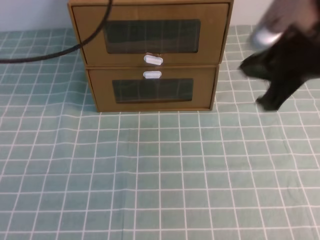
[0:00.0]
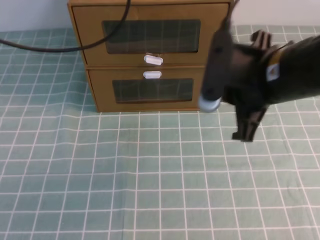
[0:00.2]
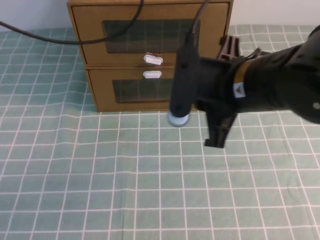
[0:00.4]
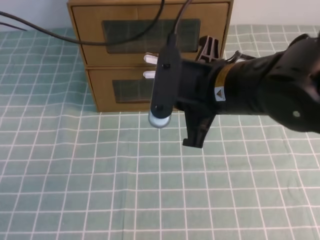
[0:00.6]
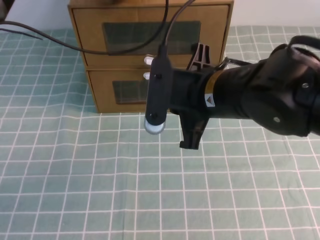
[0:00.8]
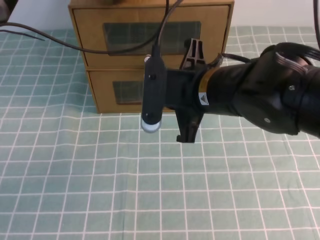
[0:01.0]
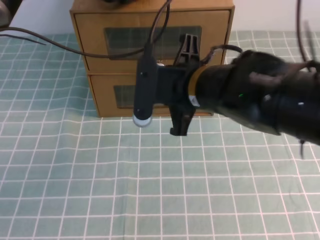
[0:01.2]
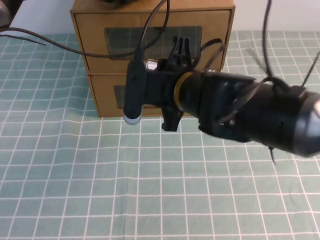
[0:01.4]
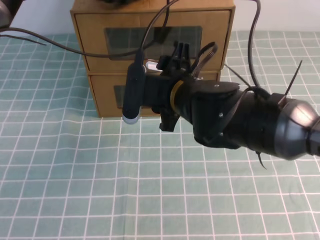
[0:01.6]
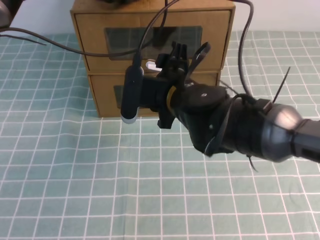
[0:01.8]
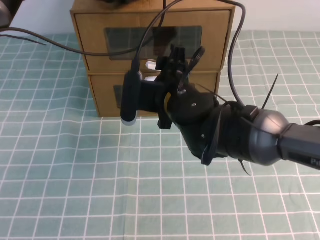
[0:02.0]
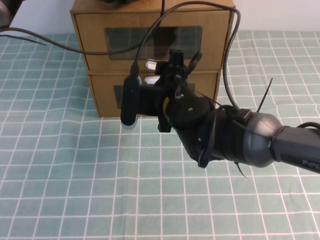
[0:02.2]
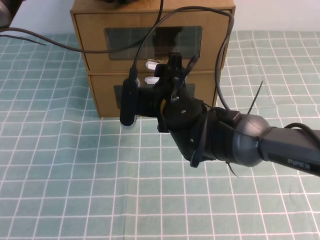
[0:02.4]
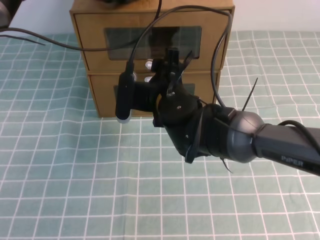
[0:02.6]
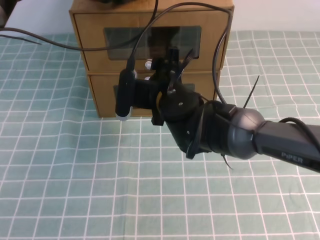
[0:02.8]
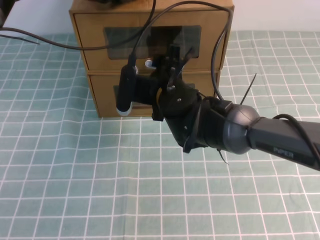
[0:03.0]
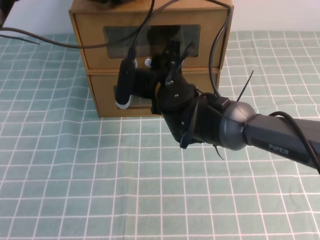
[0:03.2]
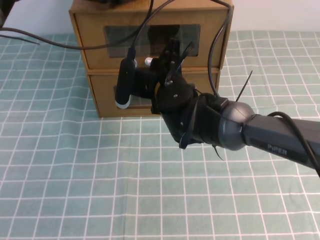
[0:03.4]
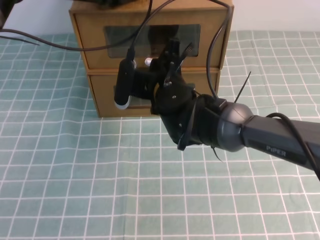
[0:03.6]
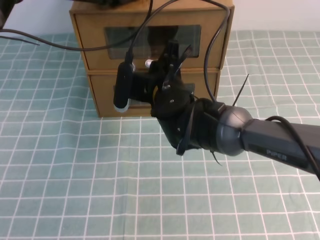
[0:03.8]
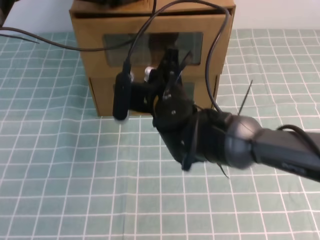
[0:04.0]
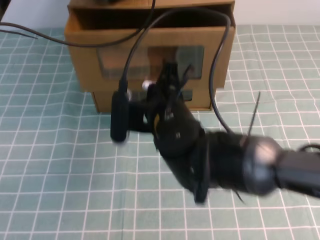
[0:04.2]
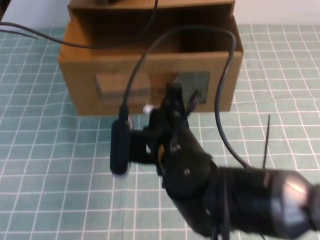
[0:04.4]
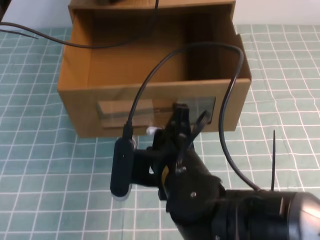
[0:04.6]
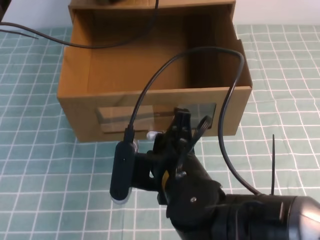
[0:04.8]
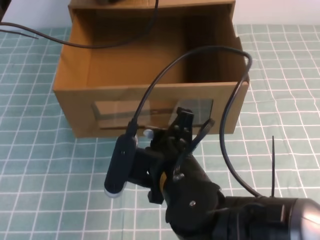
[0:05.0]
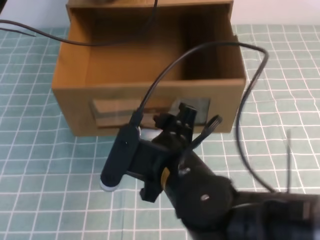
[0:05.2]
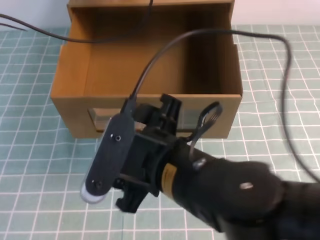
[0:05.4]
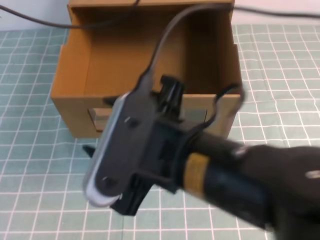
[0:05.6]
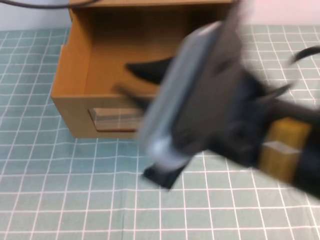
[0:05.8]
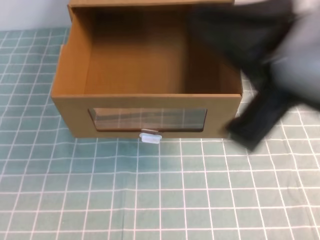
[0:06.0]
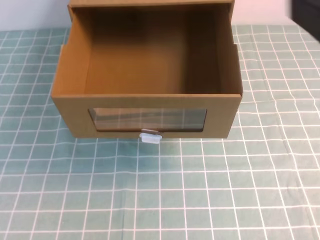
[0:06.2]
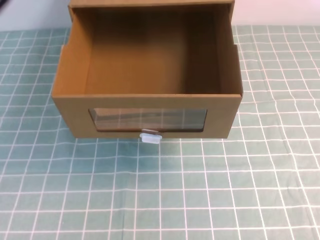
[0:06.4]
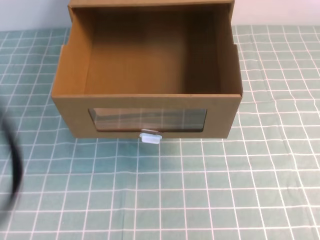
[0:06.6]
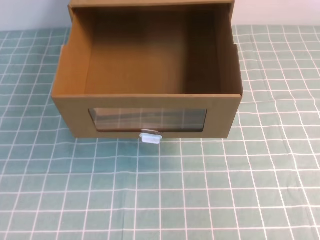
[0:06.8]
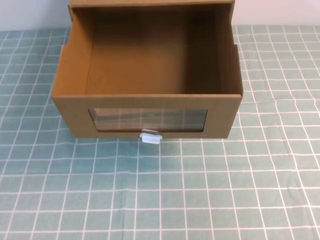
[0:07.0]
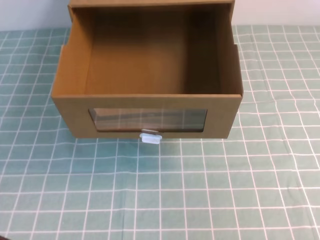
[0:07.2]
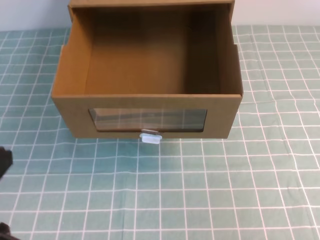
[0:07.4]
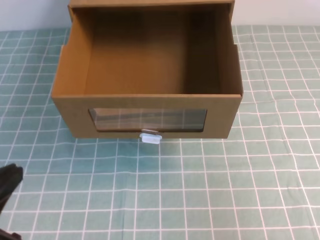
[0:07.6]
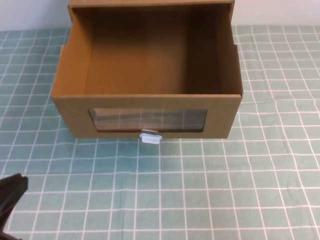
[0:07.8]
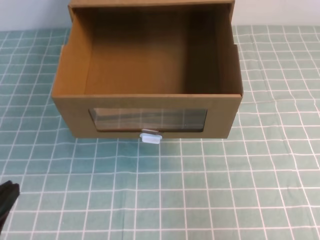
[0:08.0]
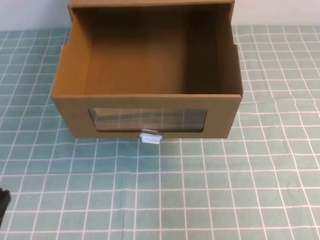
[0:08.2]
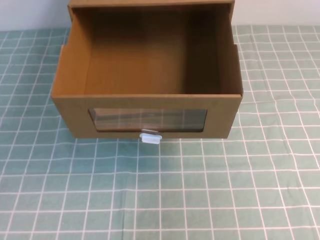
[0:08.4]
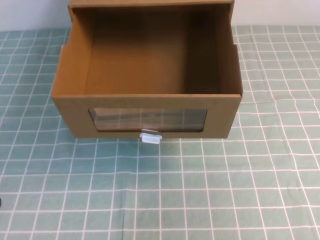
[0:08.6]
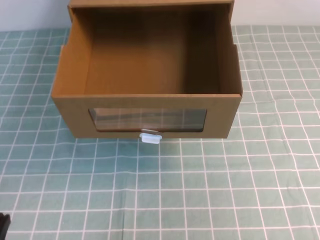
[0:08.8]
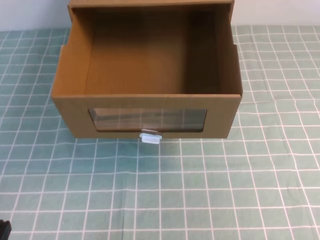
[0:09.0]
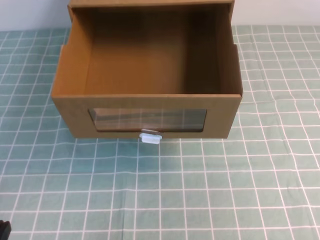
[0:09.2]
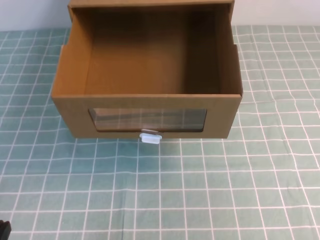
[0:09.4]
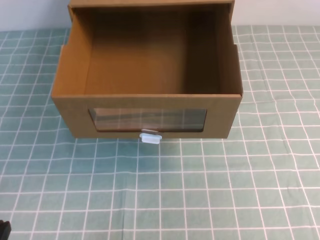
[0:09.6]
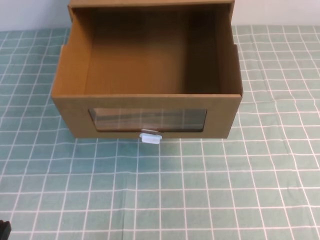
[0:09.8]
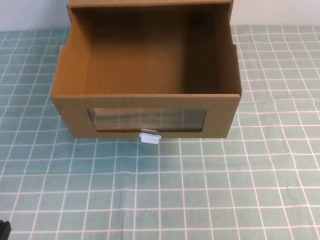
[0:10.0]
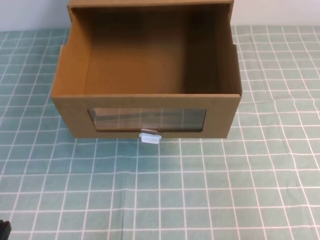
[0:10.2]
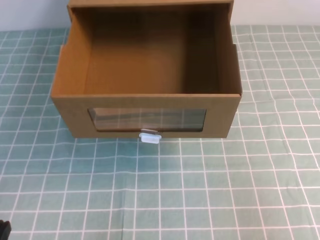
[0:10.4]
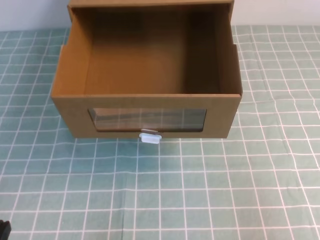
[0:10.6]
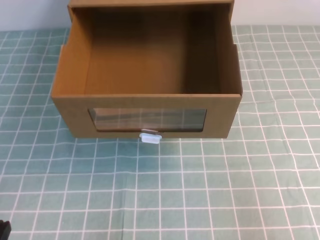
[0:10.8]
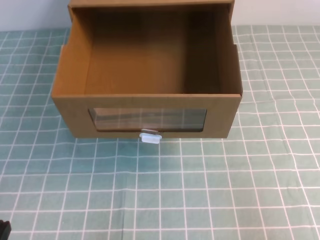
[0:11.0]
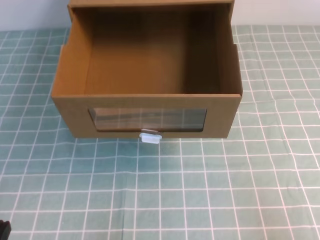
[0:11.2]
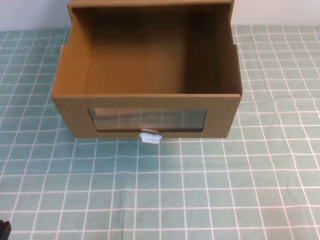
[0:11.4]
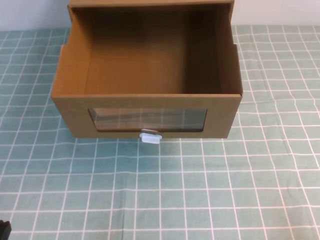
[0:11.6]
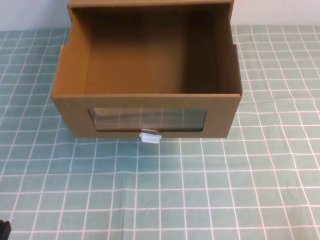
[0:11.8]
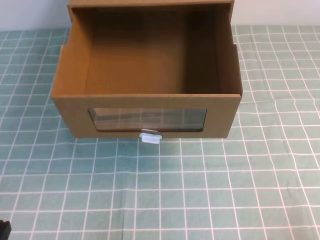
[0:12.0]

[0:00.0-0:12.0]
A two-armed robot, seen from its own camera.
Task of the whole recording: open the shoebox on the cyan tablecloth.
0:00.0 to 0:01.6: The right gripper goes about 20 cm to the left and downward, and opens up. Meanwhile the left gripper travels forward, downward and to the right by roughly 20 cm.
0:01.6 to 0:03.0: The right gripper shifts by roughly 5 cm.
0:03.0 to 0:04.4: The right gripper shifts some 10 cm backward, and closes.
0:04.4 to 0:06.0: The right gripper travels upward, backward and to the right by about 25 cm, and opens and closes again. Meanwhile the left gripper shifts roughly 25 cm upward and backward.
0:06.0 to 0:07.6: The right gripper moves to the right and downward, some 20 cm. The left gripper travels downward and backward by roughly 30 cm.
0:07.6 to 0:09.0: The left gripper goes about 15 cm downward.

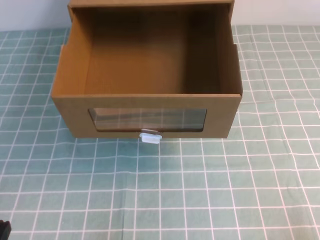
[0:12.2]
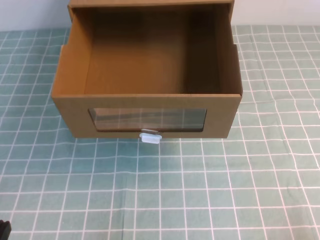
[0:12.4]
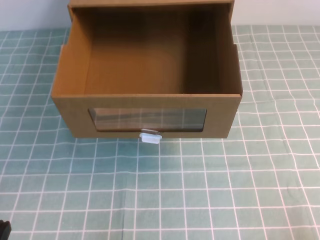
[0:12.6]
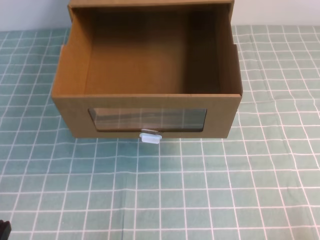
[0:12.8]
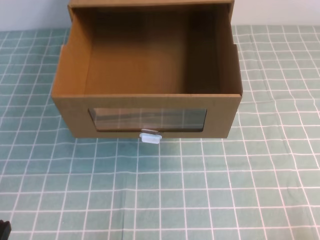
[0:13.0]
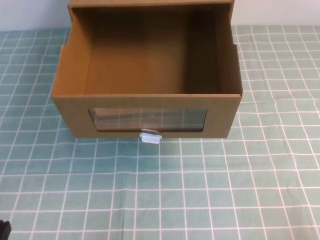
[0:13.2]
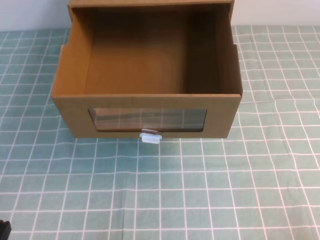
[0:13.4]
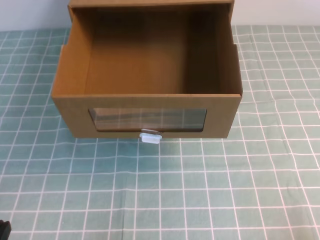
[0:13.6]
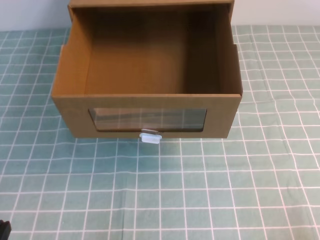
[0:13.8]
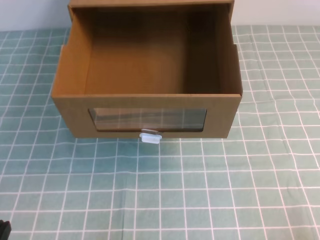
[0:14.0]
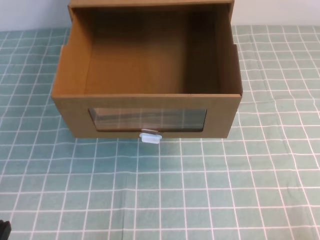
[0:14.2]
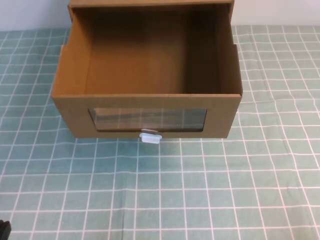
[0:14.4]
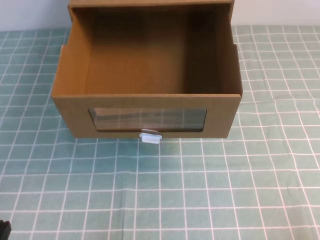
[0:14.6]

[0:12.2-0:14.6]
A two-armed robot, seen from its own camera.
Task of the whole recording: open the shoebox on the cyan tablecloth.
0:12.2 to 0:14.6: Both grippers stay put.

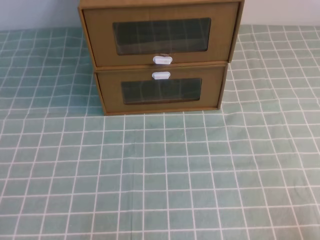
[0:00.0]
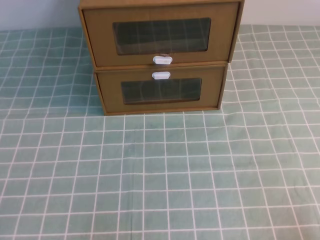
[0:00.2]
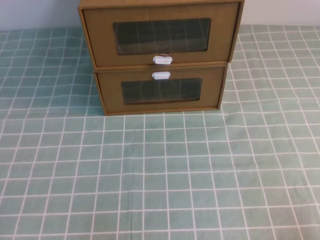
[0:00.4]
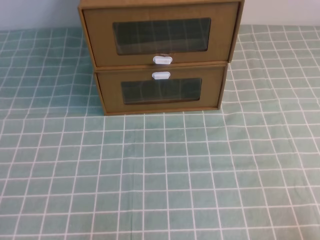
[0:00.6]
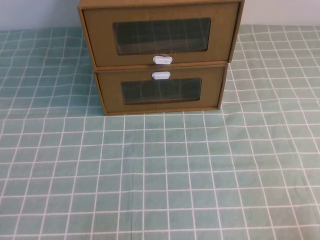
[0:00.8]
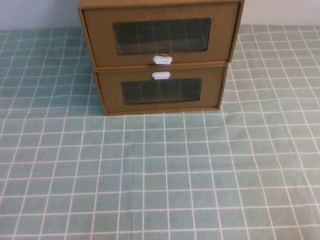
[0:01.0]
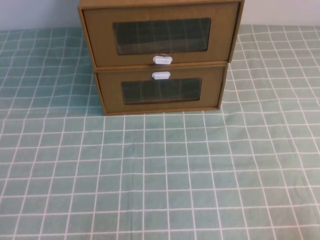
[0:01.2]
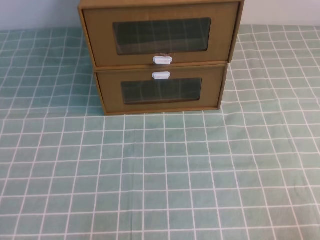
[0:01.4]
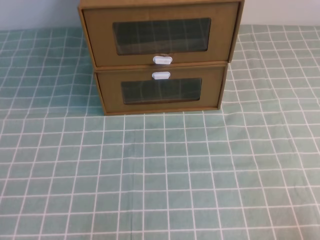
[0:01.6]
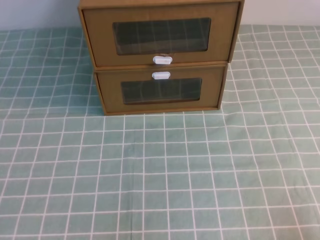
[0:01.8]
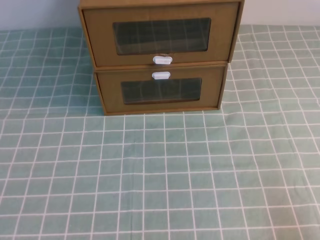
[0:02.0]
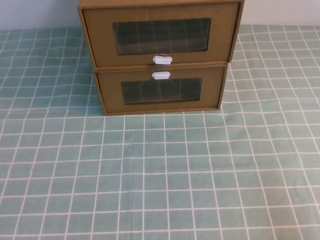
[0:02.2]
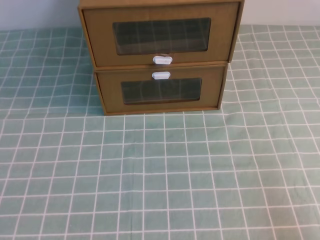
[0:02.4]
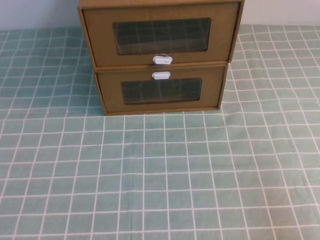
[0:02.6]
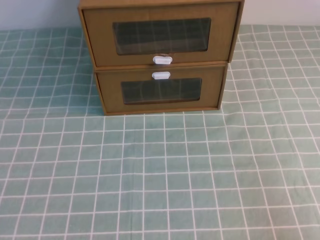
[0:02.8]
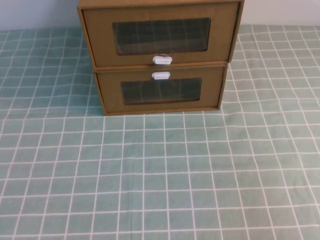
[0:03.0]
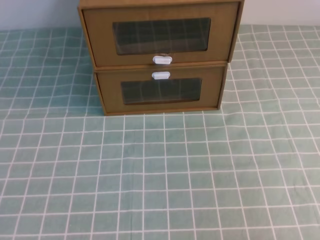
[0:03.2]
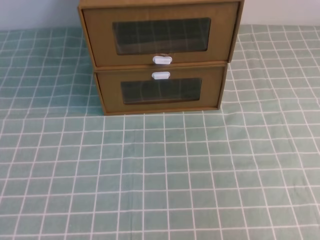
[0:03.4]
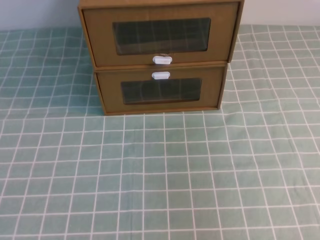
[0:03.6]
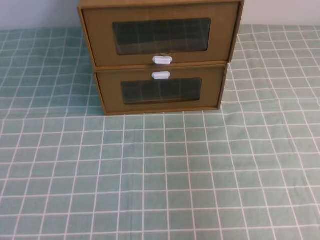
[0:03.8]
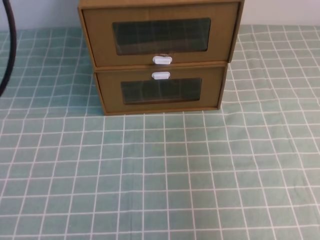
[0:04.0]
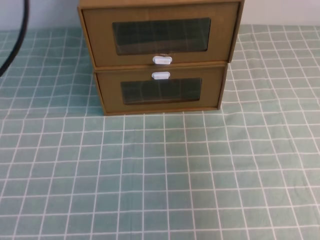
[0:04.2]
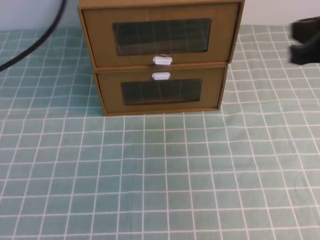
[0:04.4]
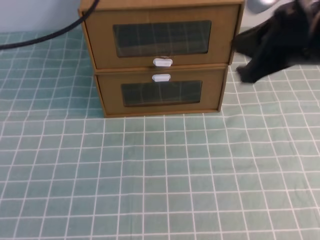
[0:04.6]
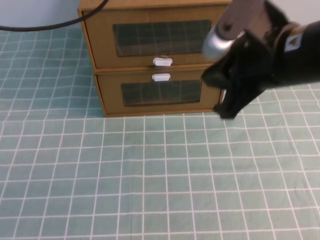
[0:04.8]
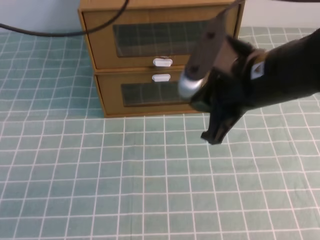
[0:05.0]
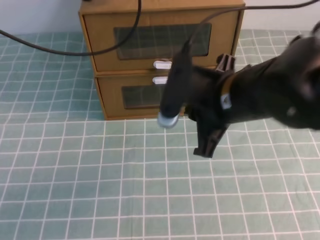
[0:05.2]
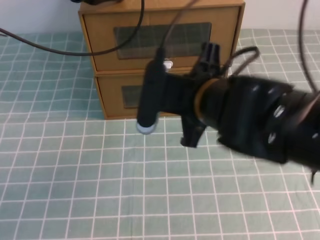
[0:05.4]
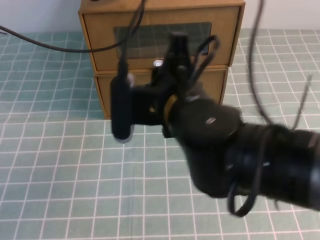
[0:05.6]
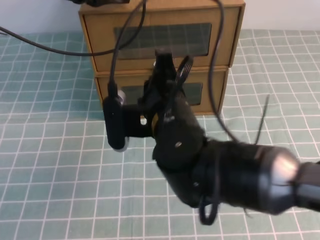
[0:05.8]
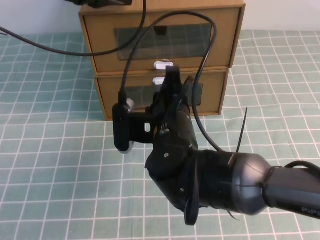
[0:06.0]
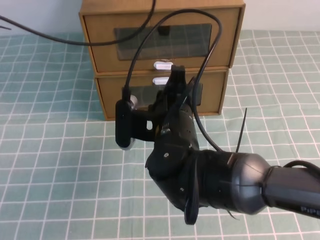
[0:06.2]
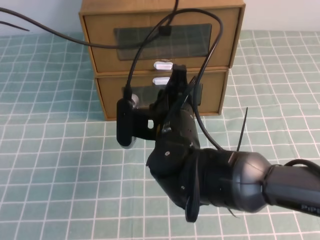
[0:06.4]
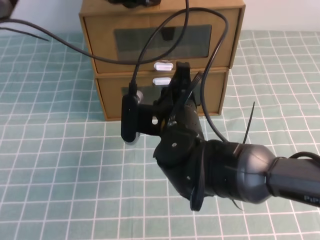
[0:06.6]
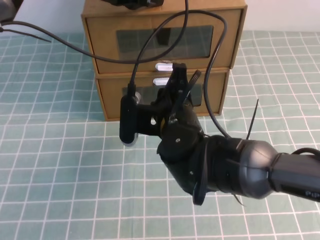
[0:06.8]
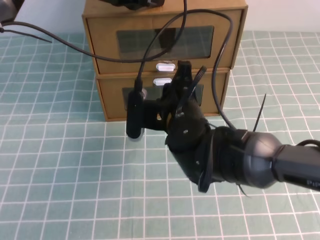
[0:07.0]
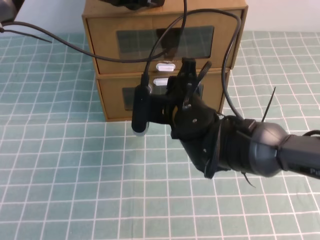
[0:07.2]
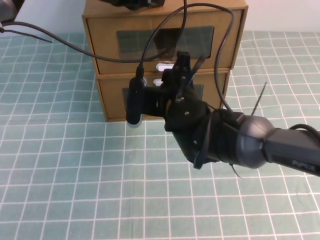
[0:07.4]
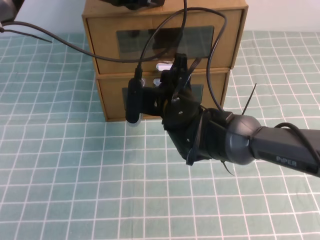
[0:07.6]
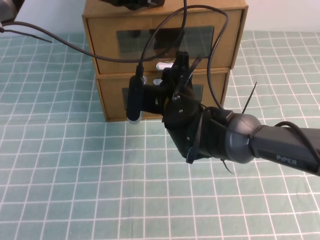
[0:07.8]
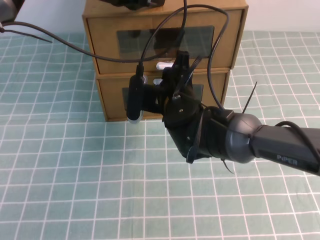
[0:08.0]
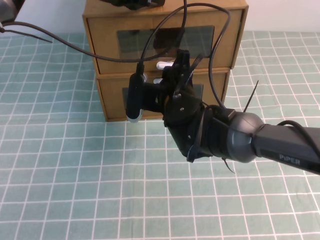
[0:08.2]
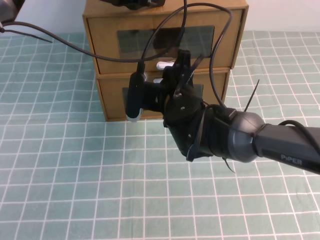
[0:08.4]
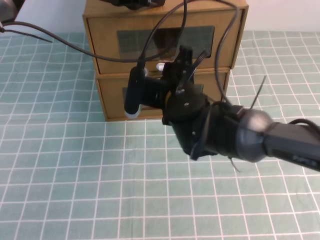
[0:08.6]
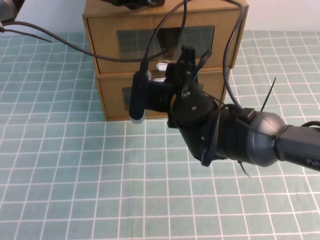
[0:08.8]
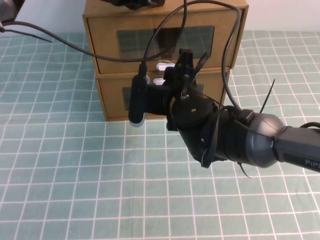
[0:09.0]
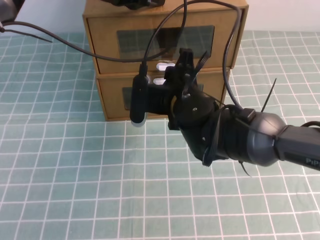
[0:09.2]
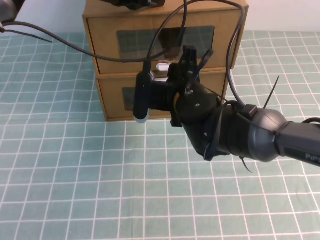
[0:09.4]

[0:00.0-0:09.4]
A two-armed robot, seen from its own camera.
Task of the whole recording: open the shoebox on the cyan tablecloth.
0:00.0 to 0:01.6: Both grippers stay about where they are.
0:03.2 to 0:04.8: The right gripper travels forward and to the left by about 30 cm. The left gripper travels forward by some 35 cm.
0:04.8 to 0:06.2: The right gripper moves to the left and downward, about 20 cm. The left gripper moves forward and downward, some 10 cm.
0:06.2 to 0:07.8: The right gripper travels forward by some 10 cm, and opens its fingers, while the left gripper ends up some 5 cm from where it was.
0:07.8 to 0:09.4: There are only small adjustments of the grippers.
